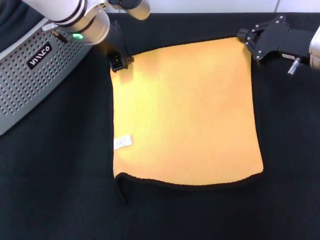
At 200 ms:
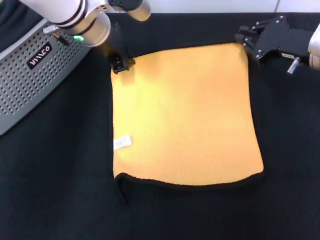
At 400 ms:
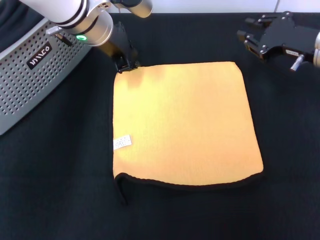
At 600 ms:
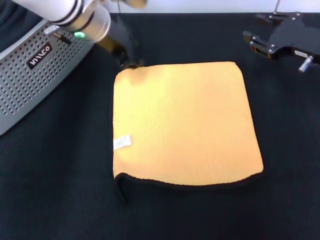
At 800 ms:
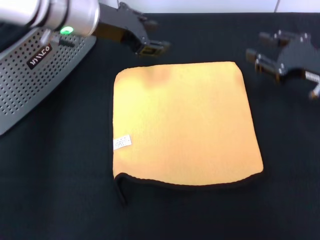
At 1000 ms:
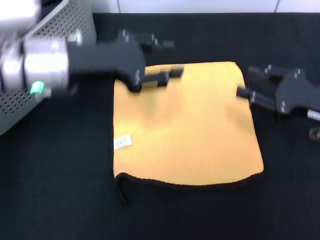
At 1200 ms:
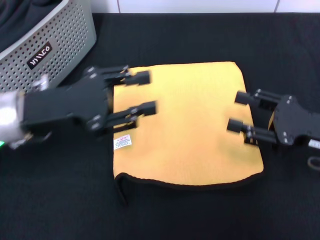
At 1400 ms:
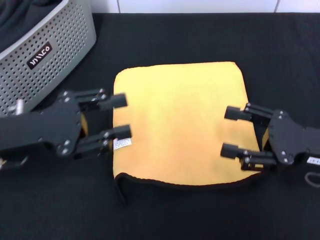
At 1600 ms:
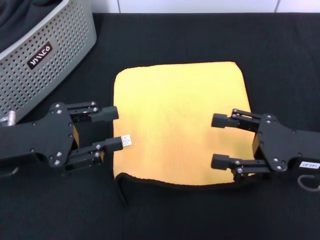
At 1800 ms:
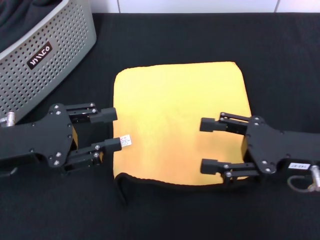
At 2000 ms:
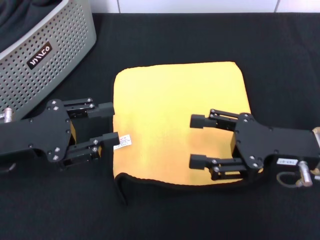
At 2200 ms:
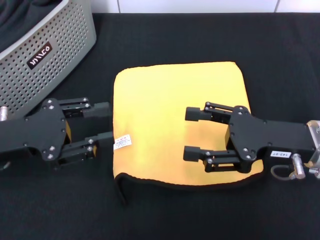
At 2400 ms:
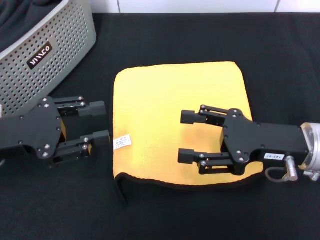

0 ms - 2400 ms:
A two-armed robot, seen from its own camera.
Task of the whole recording: pick up the towel from the storage box and lay it flat on the black tablecloth.
0 ms - 1200 ms: The left gripper shifts some 20 cm backward and to the left, and opens its fingers, while the right gripper travels backward by approximately 15 cm, and opens.
1200 ms - 2400 ms: Both grippers travel together to the left, some 5 cm. The right gripper opens up.
